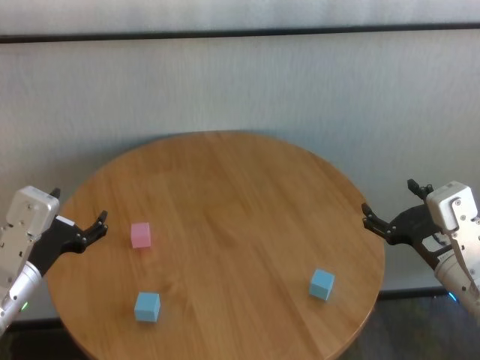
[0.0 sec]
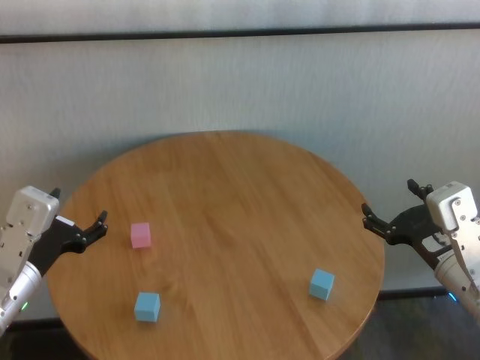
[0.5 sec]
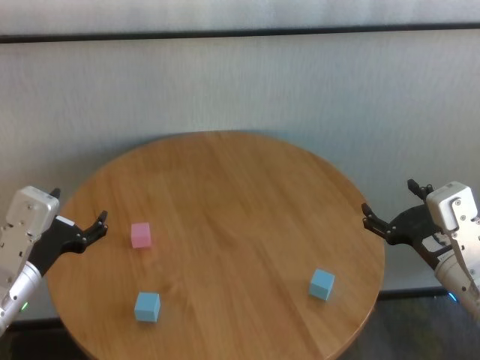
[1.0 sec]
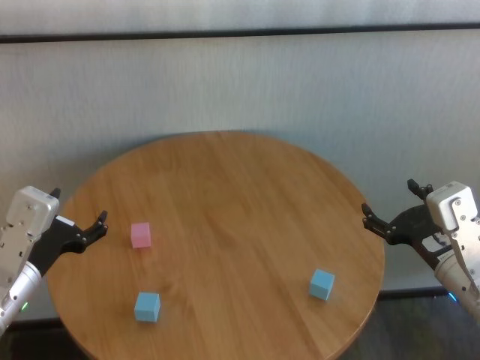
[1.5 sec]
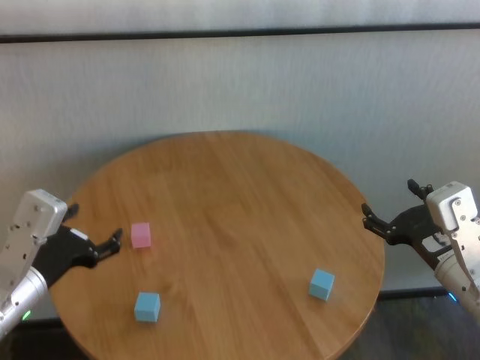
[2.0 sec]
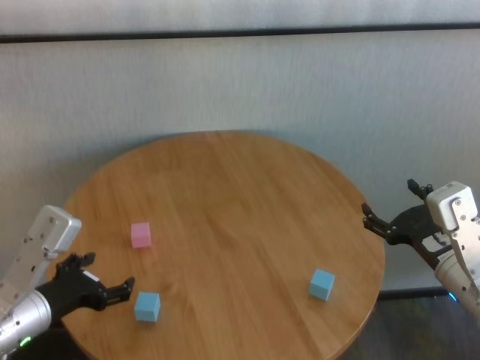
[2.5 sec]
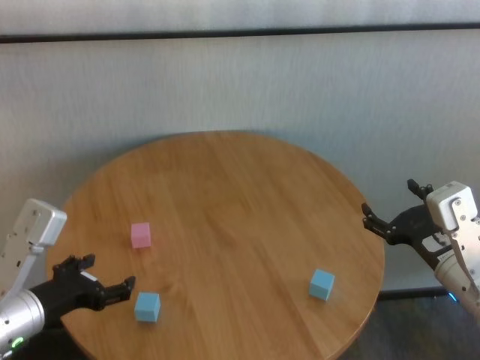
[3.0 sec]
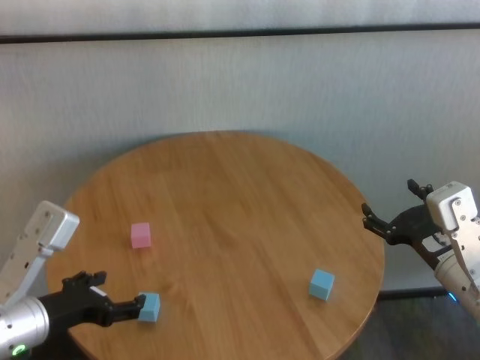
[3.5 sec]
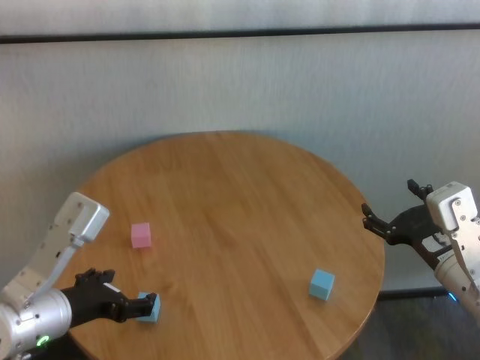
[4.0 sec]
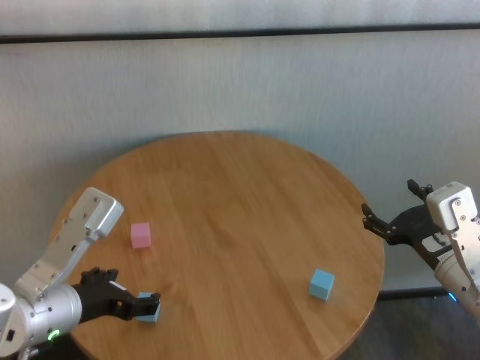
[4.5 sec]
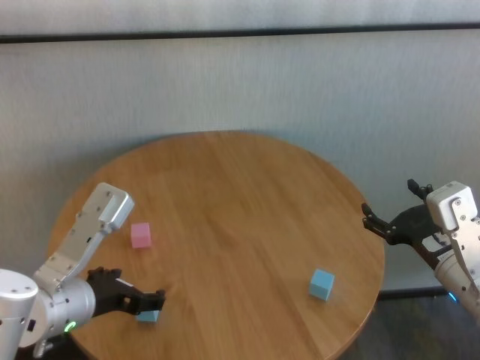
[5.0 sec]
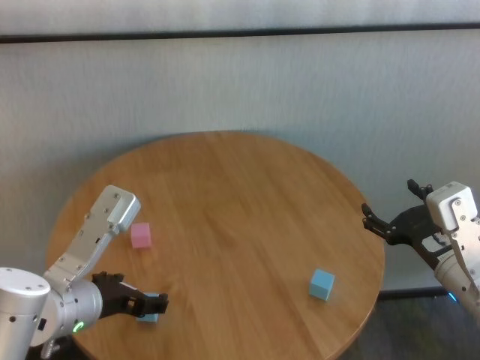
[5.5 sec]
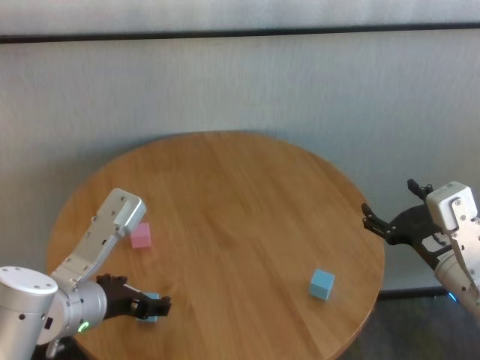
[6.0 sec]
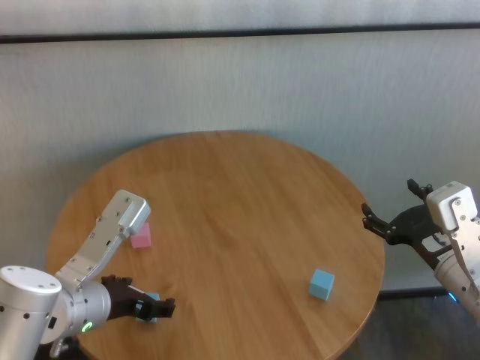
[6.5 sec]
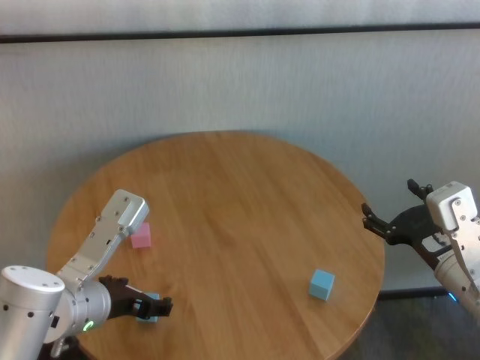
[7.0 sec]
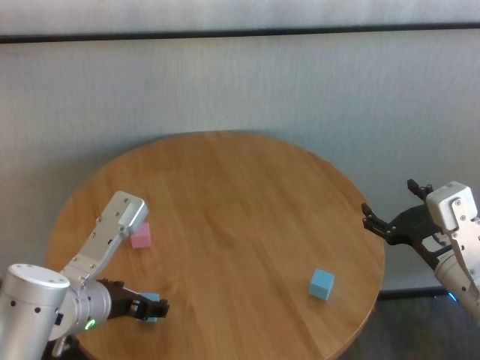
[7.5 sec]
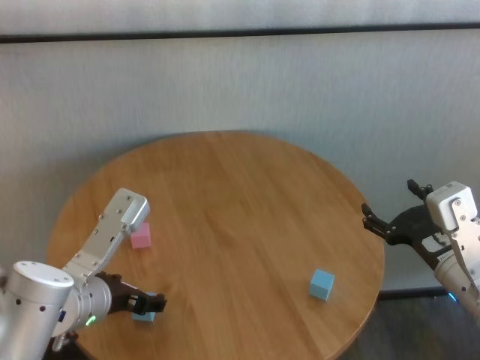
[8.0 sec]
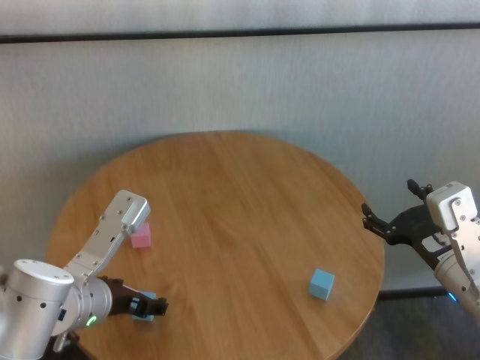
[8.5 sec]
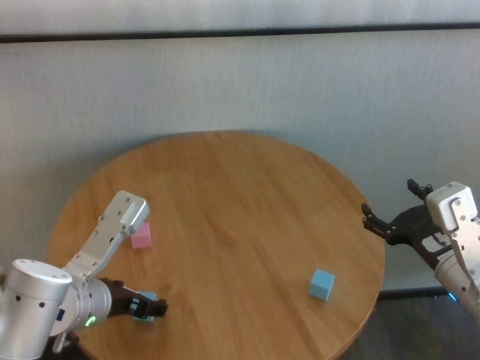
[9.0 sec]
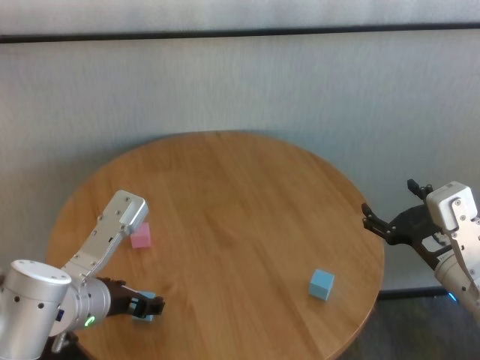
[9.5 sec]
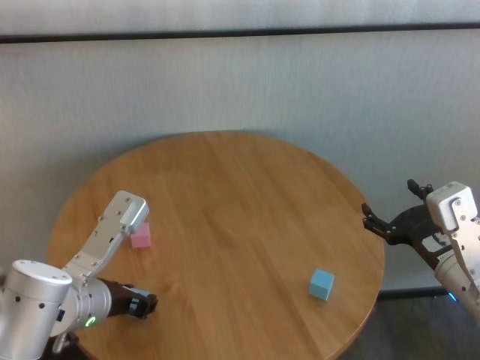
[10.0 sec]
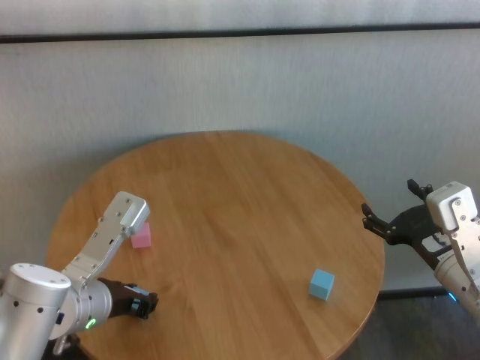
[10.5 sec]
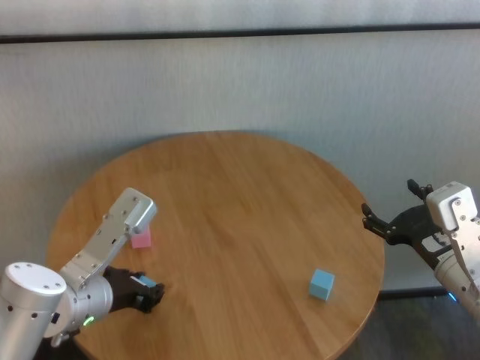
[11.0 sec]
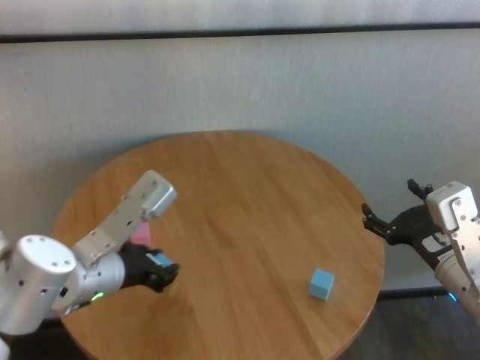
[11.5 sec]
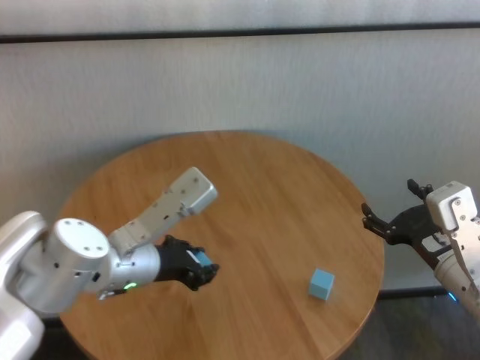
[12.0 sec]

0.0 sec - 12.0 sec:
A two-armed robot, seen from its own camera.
Task of the whole recording: stack building blocks on the table.
Step, 0.0 sec - 10.0 sec: Grasp the blue building block with left gripper.

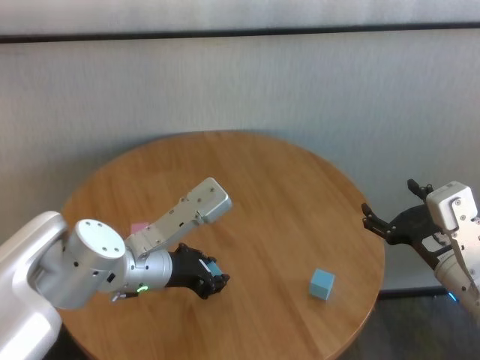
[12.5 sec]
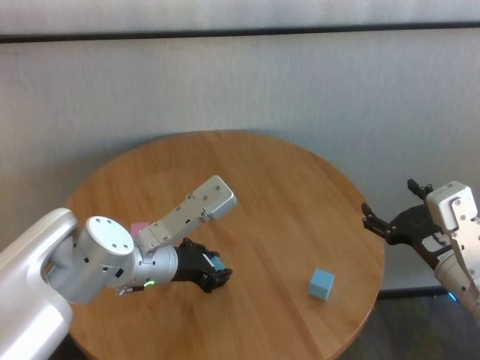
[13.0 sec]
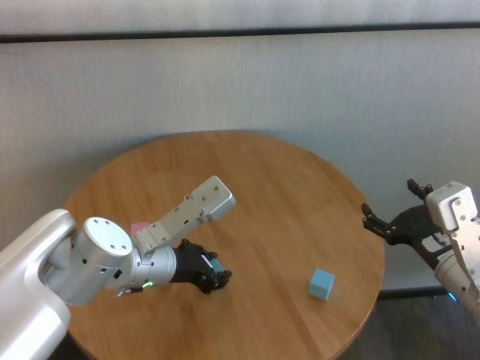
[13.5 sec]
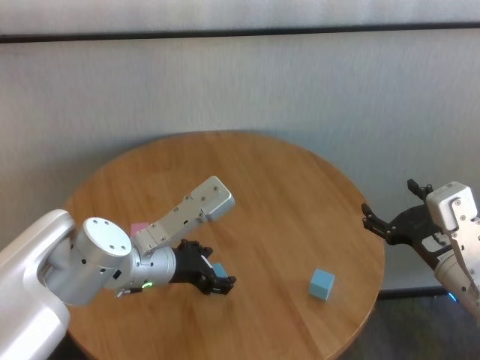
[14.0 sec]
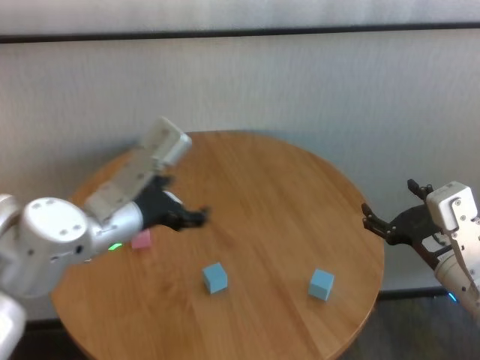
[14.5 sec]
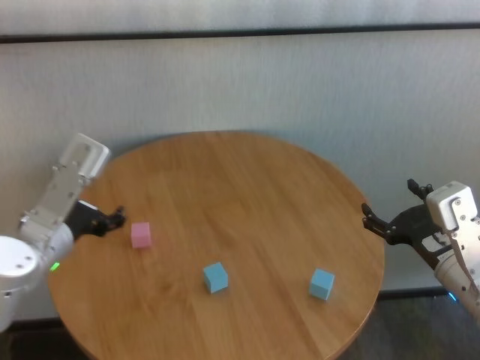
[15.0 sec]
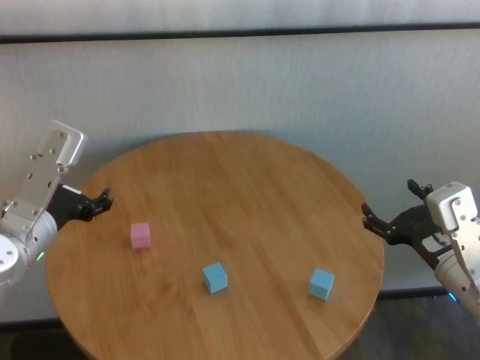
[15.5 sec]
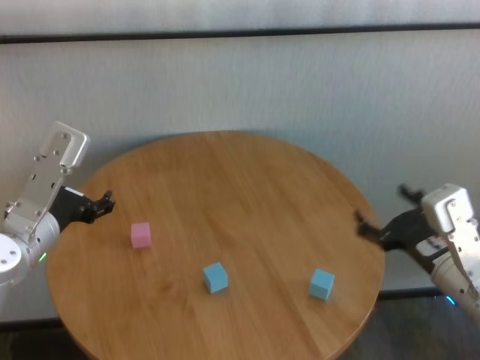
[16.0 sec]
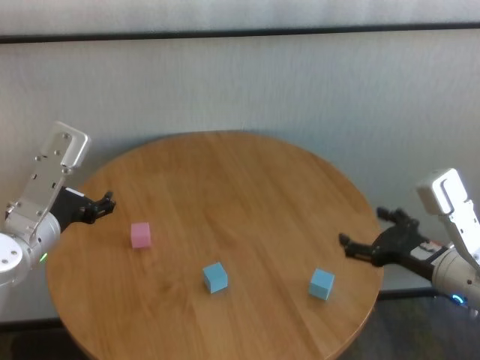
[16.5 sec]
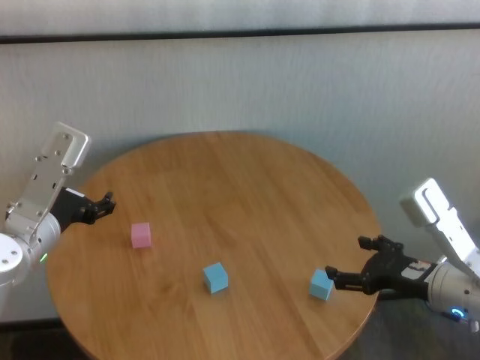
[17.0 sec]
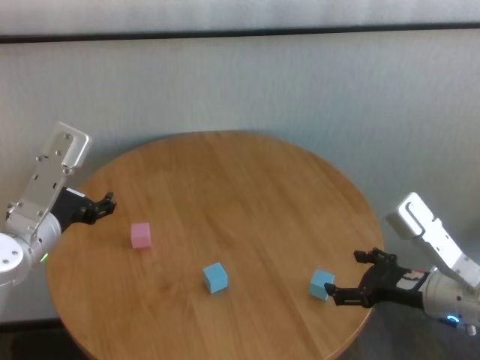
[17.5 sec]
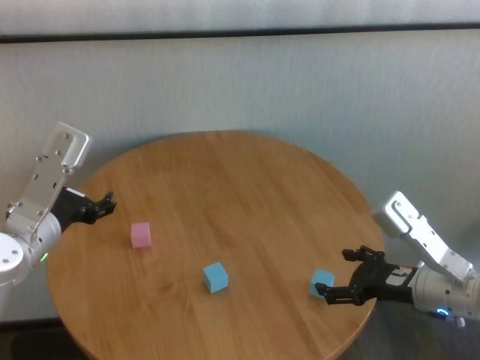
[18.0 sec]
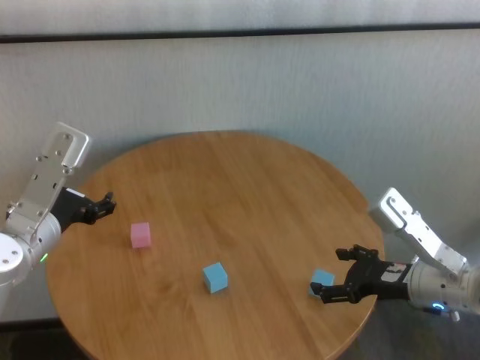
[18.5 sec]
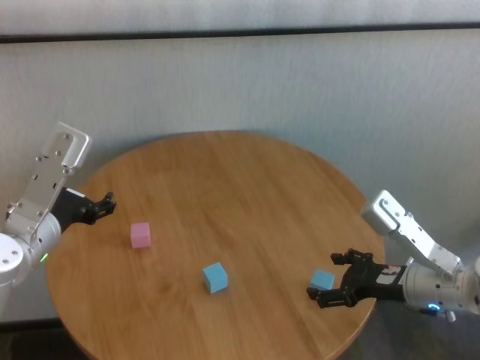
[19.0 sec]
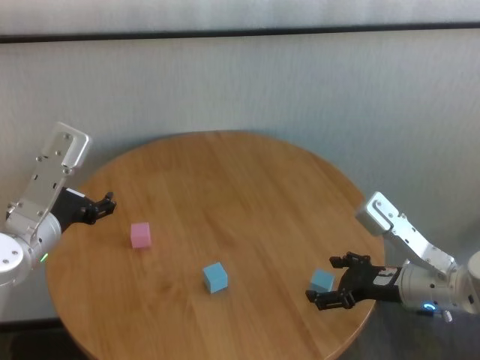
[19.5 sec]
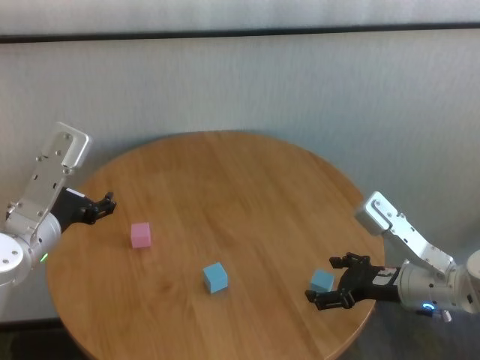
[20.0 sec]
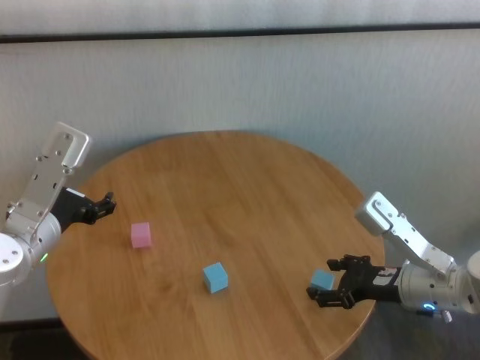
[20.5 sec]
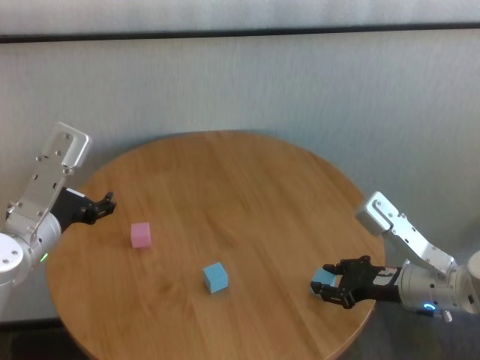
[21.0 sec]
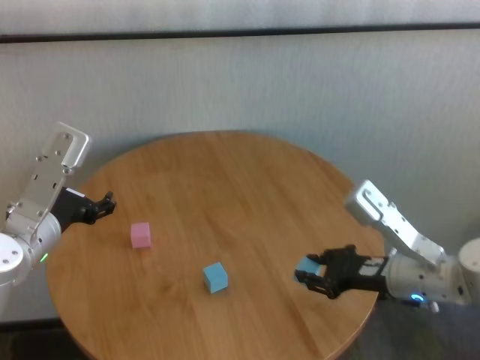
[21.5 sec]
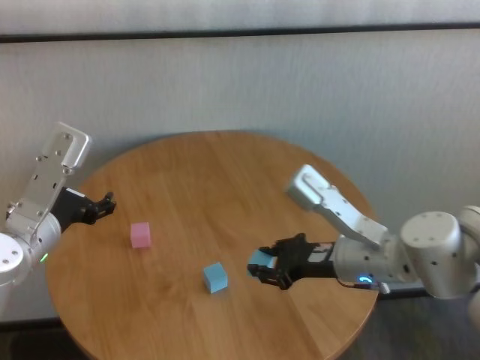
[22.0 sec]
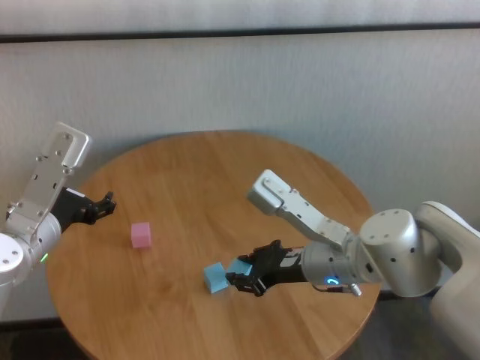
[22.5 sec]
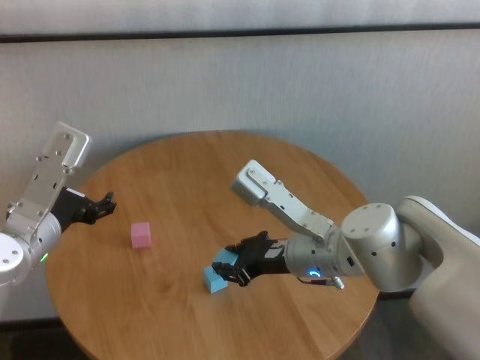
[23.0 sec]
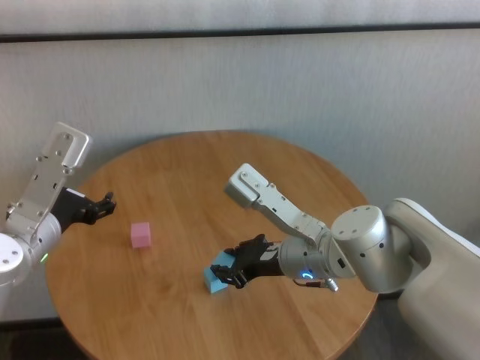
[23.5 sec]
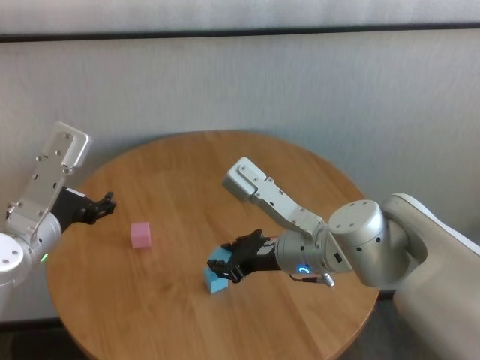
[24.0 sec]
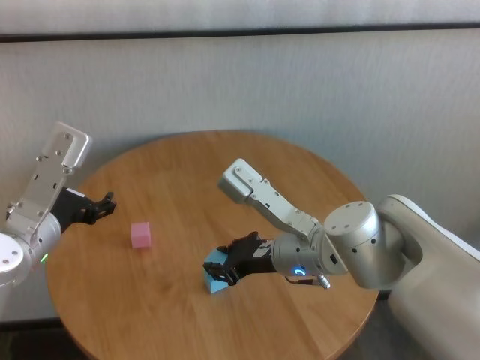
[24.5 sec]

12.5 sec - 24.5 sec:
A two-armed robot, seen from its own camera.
Task of the whole recording: stack building blocks on the table.
Step, 14.0 sec - 21.0 sec: Grasp the blue building block with right gripper.

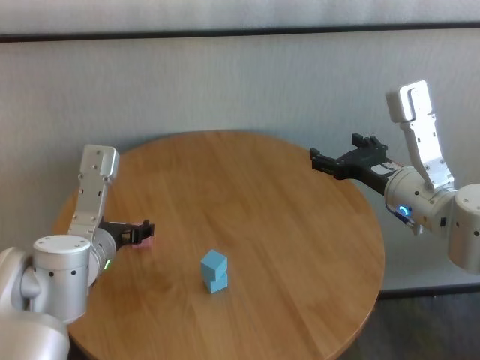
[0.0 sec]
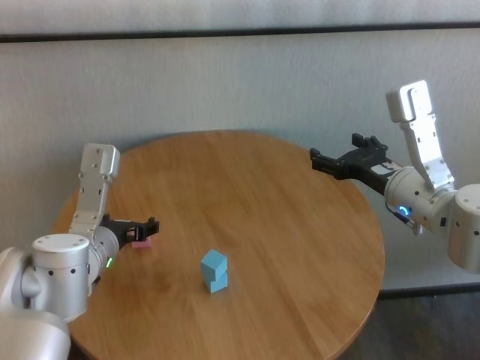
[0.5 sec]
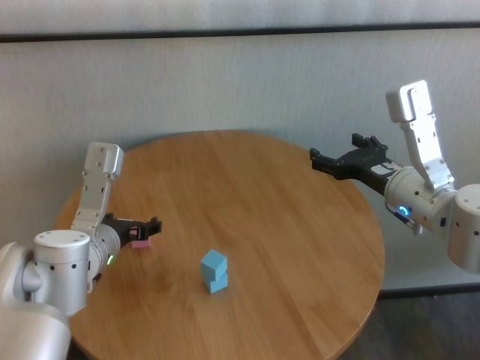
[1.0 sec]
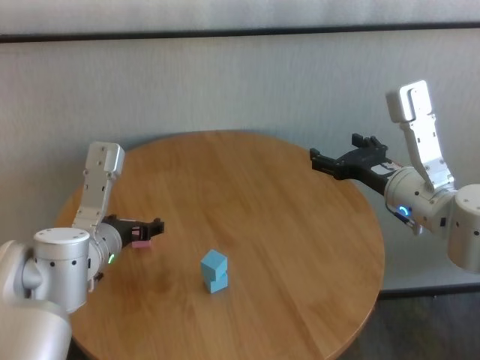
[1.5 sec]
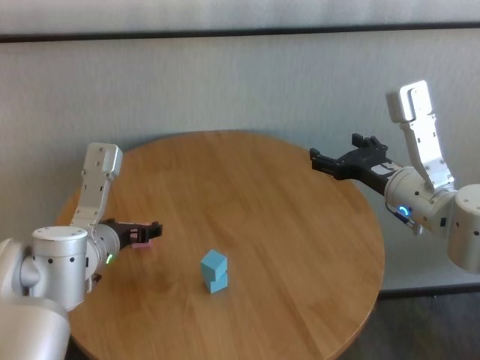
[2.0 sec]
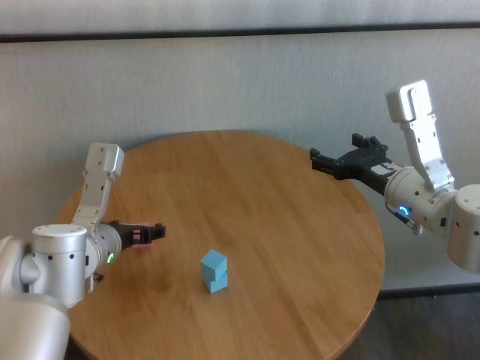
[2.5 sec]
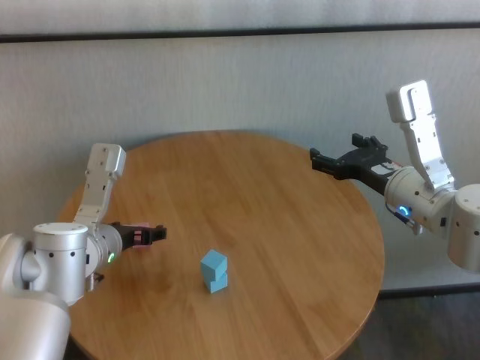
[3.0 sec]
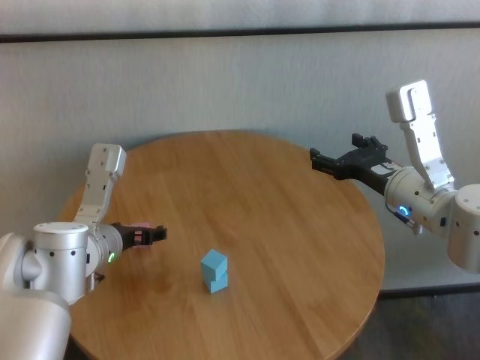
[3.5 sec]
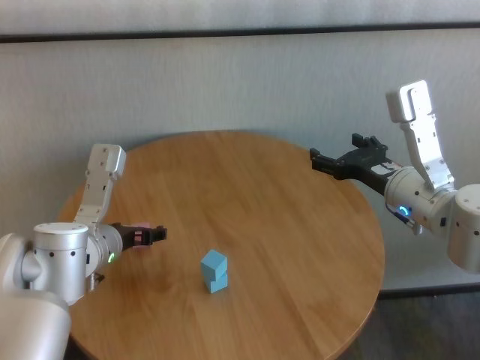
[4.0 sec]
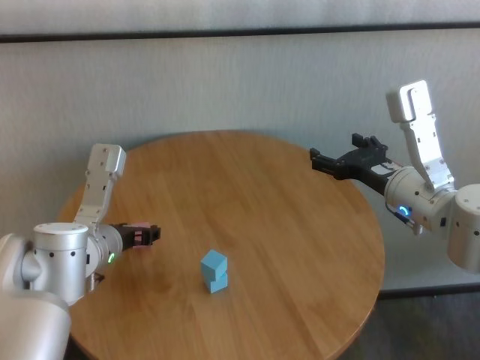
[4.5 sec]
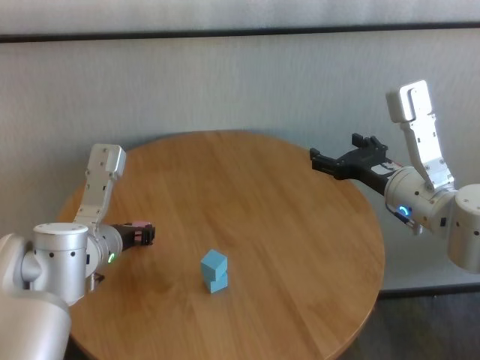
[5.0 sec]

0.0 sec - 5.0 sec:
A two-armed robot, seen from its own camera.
Task of the whole recording: stack building blocks on the table.
Step, 0.0 sec - 4.5 sec: Grasp the pink building block with left gripper.
